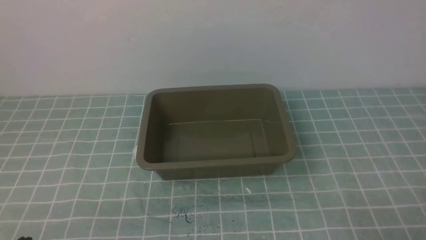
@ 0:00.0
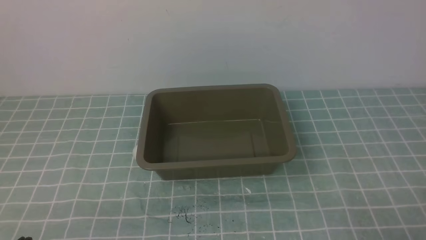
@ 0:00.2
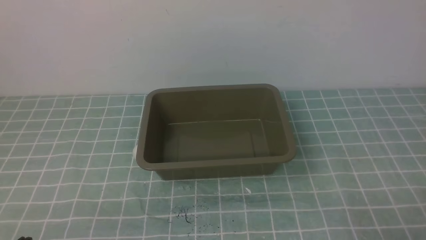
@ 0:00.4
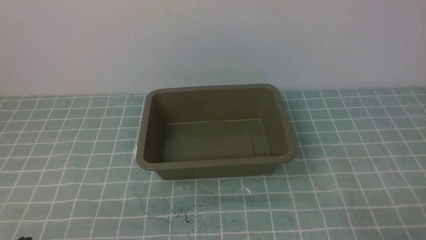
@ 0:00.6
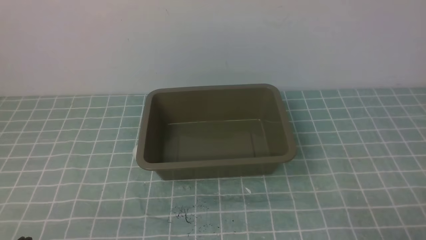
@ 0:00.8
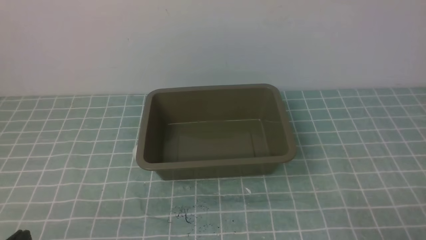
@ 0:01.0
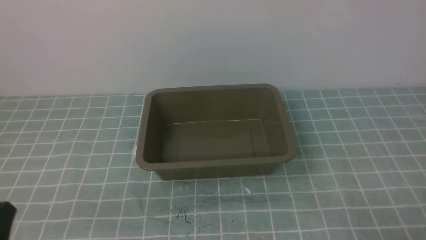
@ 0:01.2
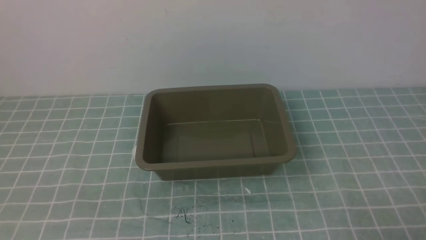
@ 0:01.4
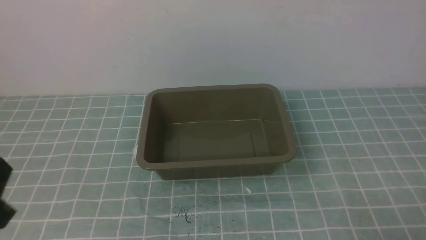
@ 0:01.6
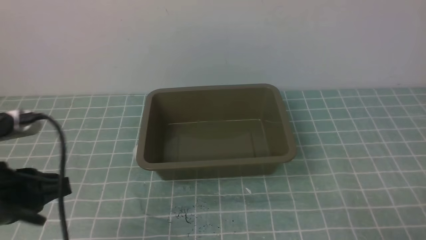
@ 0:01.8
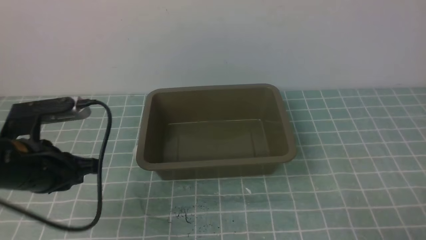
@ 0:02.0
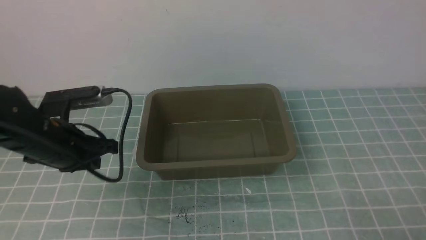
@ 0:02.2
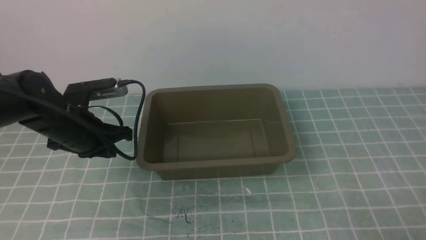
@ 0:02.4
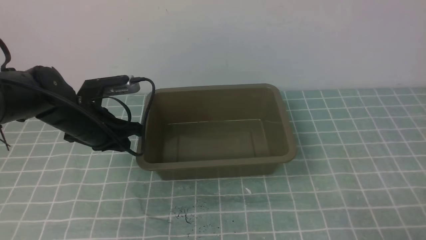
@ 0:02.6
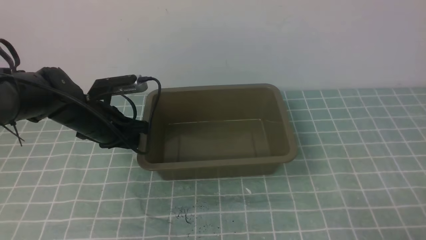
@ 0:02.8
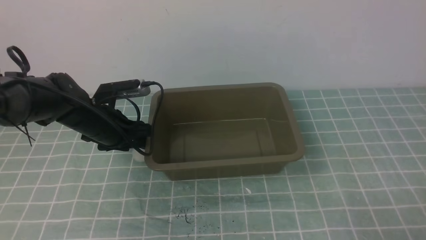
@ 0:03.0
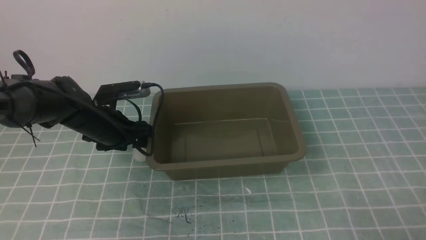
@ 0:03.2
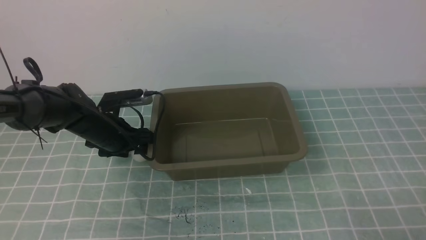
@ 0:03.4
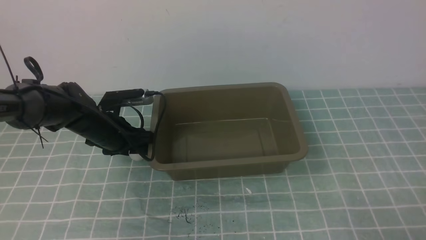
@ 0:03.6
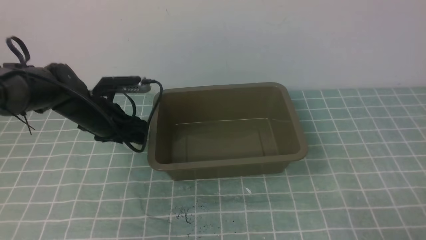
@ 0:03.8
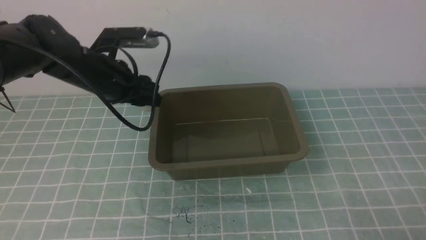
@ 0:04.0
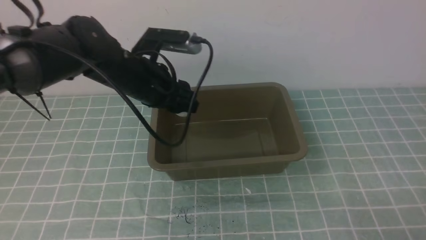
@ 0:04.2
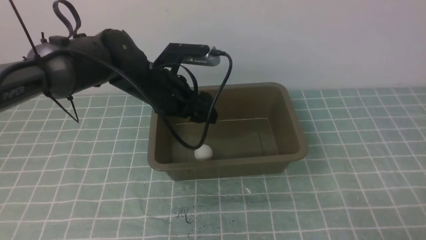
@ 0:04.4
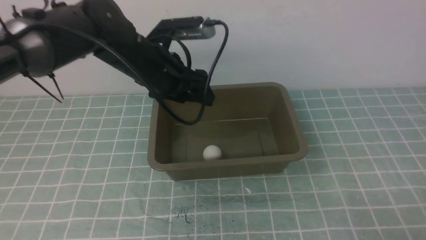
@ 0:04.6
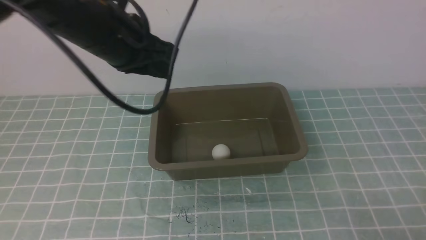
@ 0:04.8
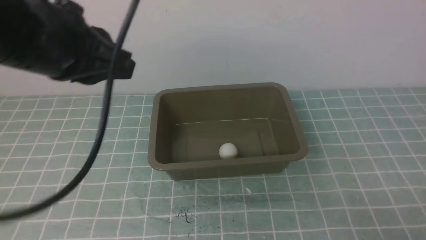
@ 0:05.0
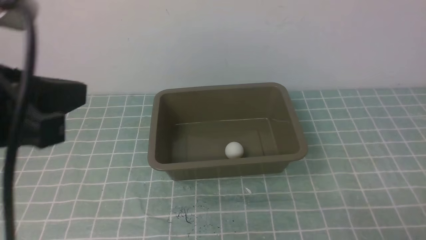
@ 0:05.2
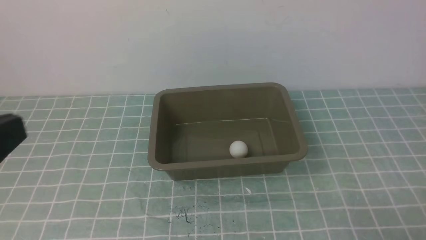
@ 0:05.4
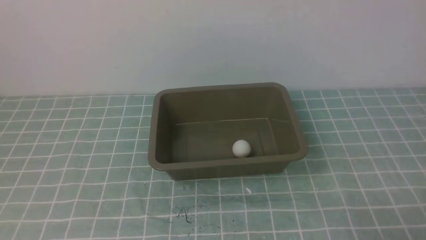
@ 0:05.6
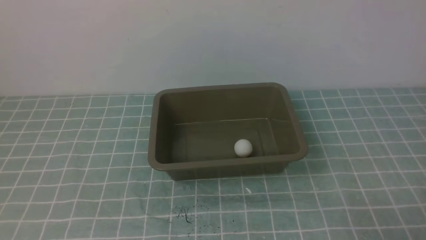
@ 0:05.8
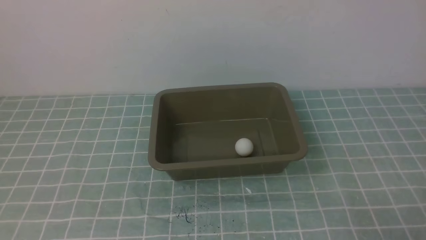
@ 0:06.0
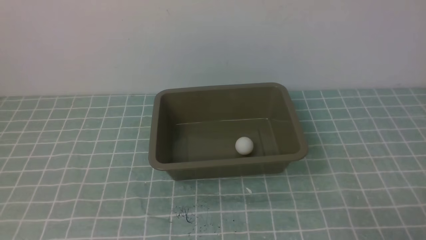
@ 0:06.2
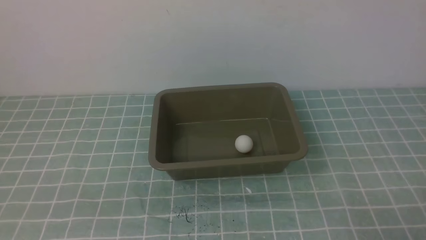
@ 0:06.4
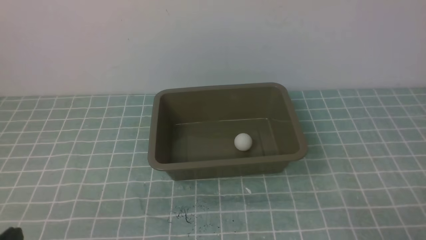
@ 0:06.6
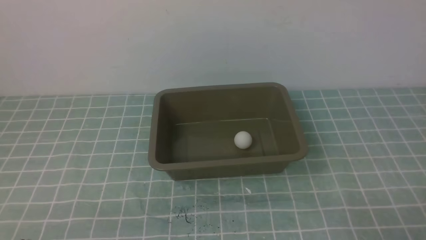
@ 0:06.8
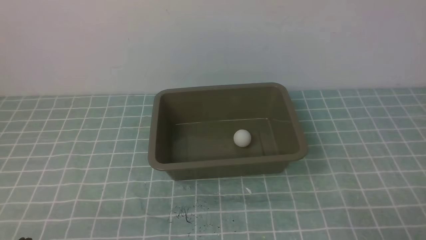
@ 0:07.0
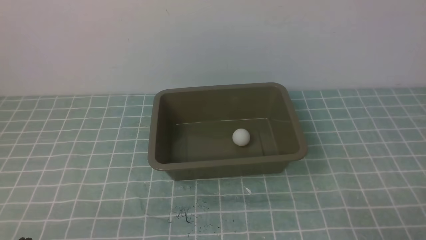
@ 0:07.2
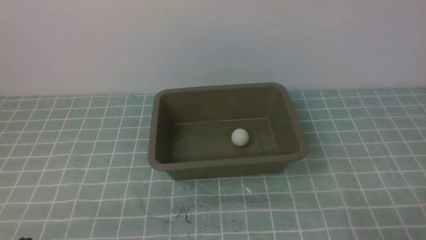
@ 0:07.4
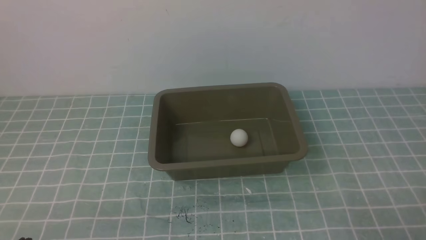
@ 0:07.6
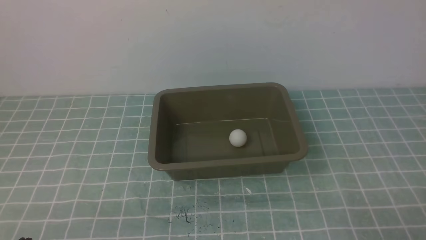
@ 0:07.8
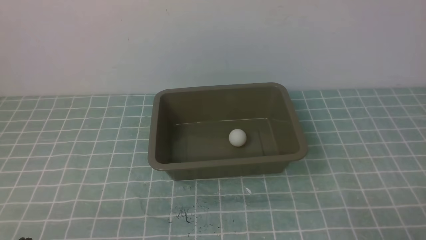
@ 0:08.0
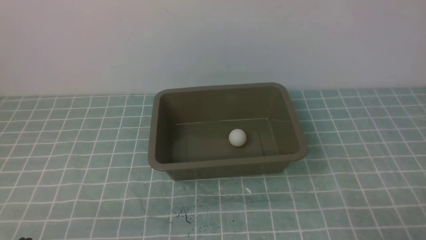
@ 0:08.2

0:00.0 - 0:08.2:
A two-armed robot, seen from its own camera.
Step, 0:00.0 - 0:04.0: use the left arm to clamp the table tennis ball closest to it.
Step, 0:04.2 - 0:04.6: use the left arm to put the table tennis ball into the box.
0:00.0 - 0:01.6: The left gripper travels upward by approximately 10 cm.
0:01.6 - 0:03.2: The left gripper shifts some 30 cm forward, and opens.
0:03.2 - 0:05.0: The left gripper is displaced upward and backward by some 30 cm, and closes.
0:05.0 - 0:06.6: The left gripper goes about 25 cm downward and backward.
